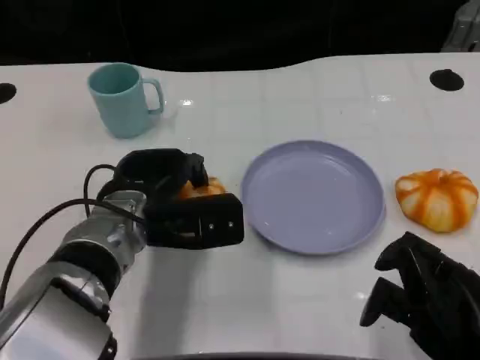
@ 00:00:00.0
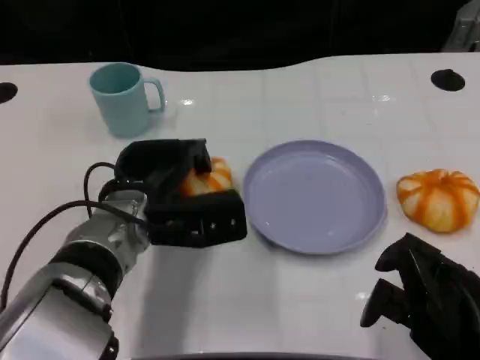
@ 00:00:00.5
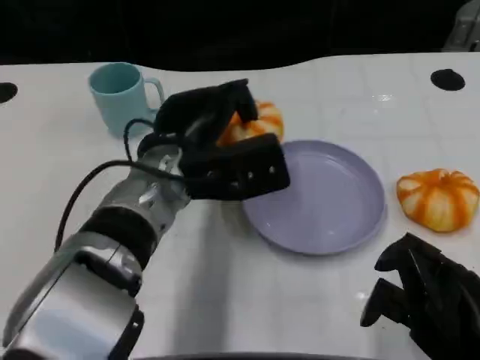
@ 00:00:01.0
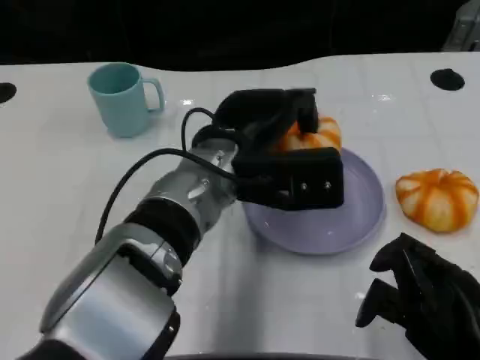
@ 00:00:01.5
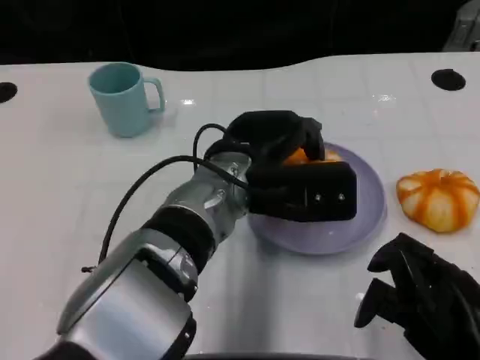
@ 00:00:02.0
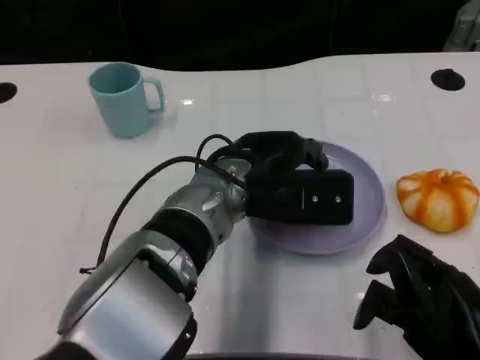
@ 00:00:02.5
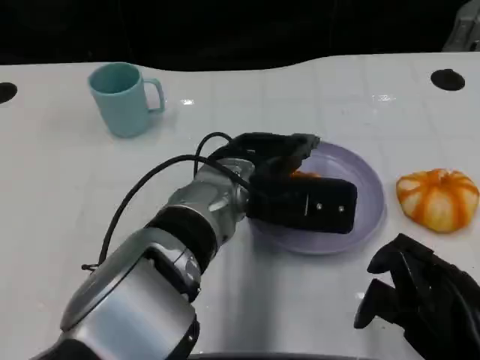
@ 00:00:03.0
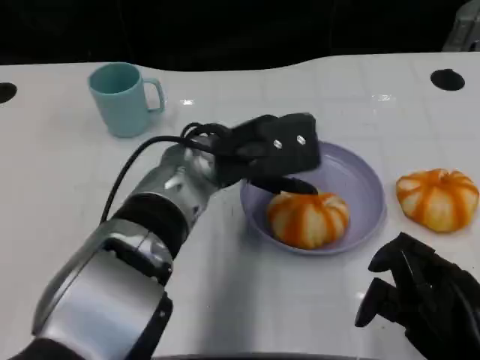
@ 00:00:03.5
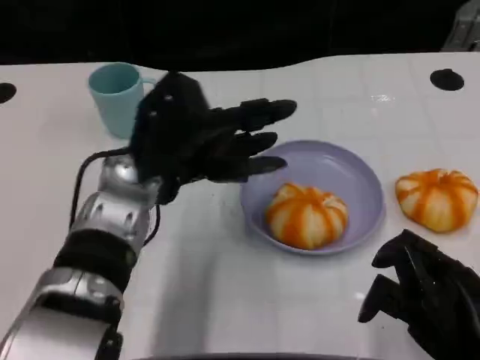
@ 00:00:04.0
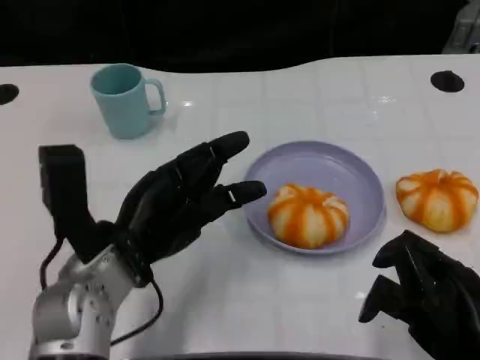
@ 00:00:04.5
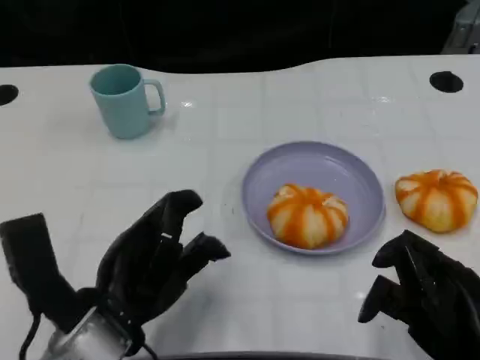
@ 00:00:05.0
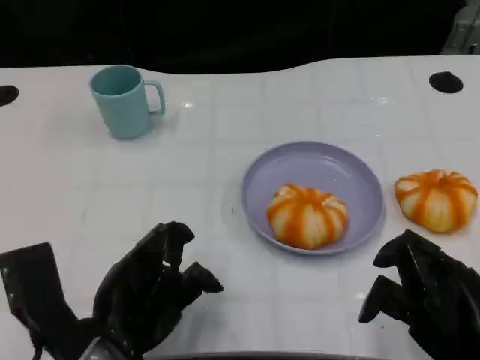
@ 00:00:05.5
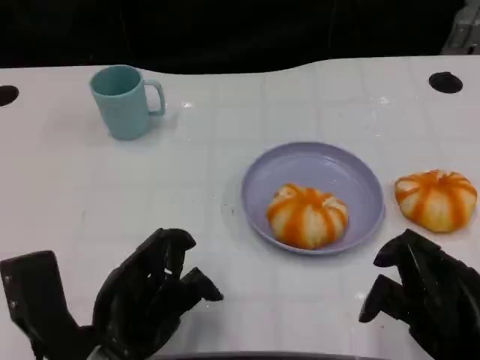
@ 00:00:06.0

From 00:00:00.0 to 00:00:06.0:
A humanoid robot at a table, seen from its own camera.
Task of the whole recording: Grasp the bread from the table and place it into the plate.
From 00:00:00.0 to 00:00:02.0: The left hand goes about 10 cm to the right.
From 00:00:02.0 to 00:00:04.0: The left hand heads to the left, covering roughly 10 cm.
From 00:00:04.0 to 00:00:06.0: The left hand is displaced backward by about 15 cm.

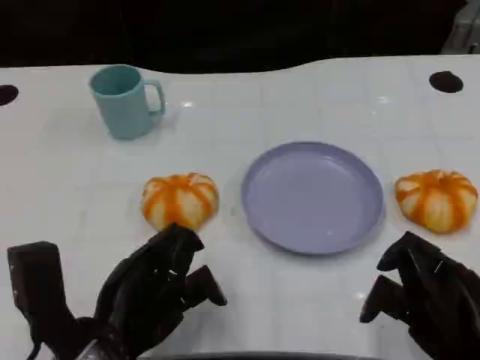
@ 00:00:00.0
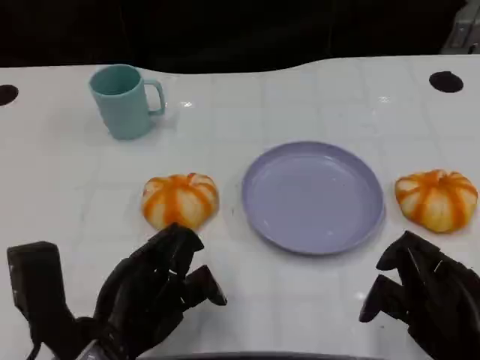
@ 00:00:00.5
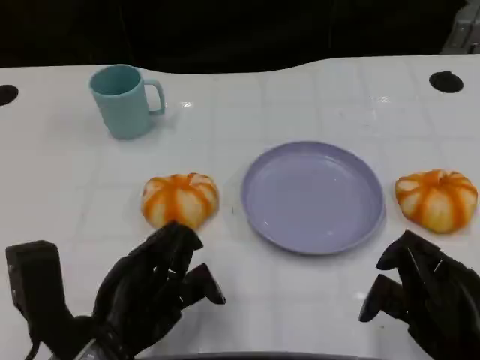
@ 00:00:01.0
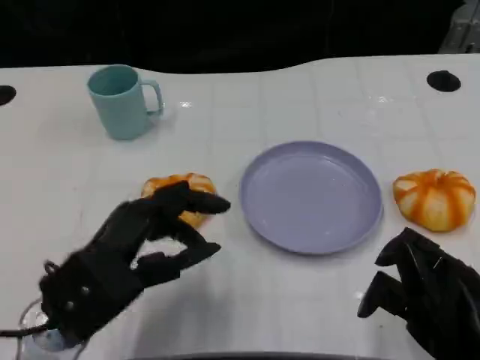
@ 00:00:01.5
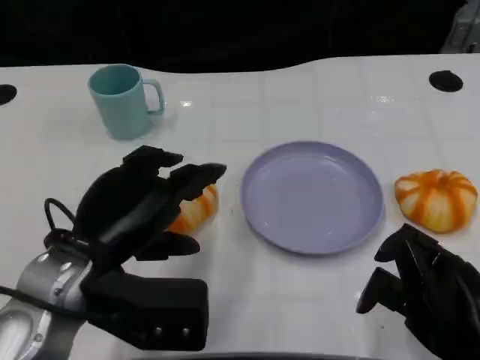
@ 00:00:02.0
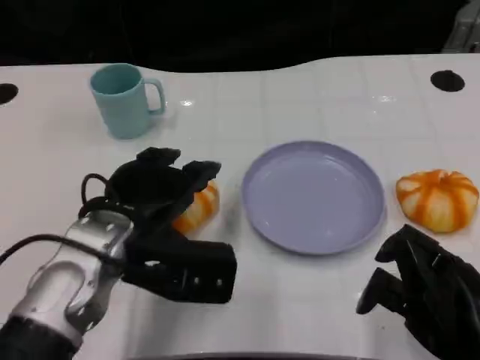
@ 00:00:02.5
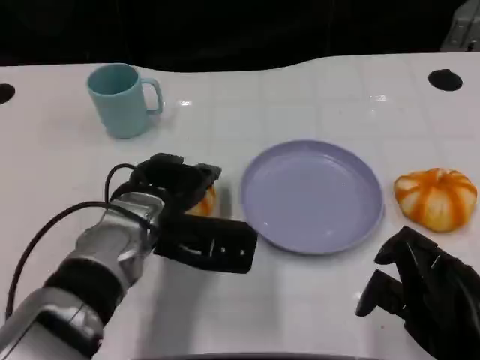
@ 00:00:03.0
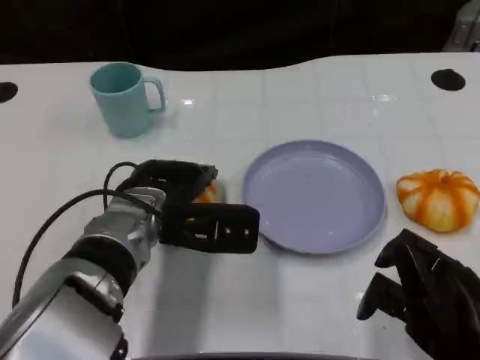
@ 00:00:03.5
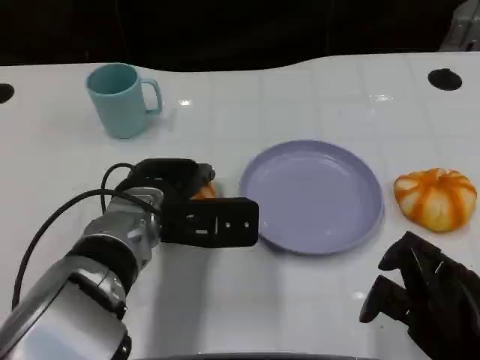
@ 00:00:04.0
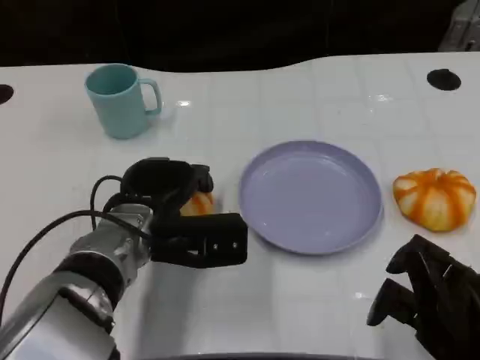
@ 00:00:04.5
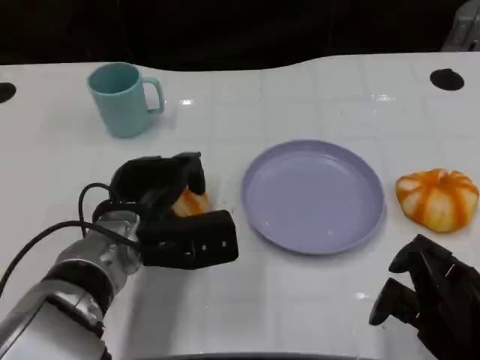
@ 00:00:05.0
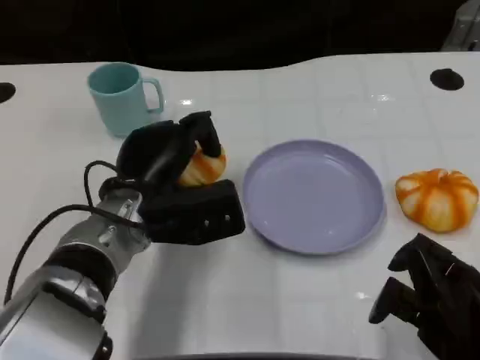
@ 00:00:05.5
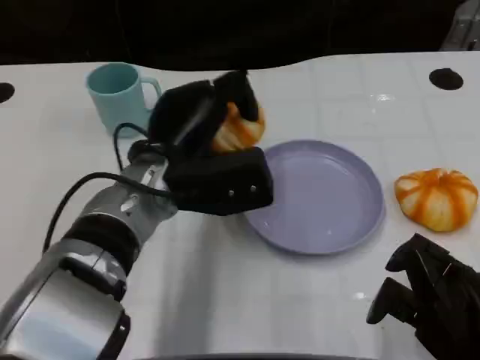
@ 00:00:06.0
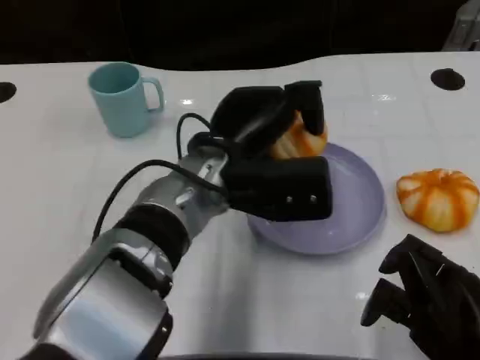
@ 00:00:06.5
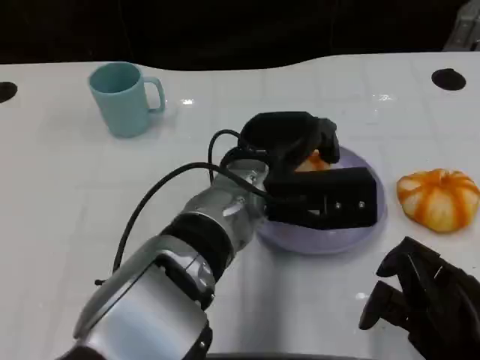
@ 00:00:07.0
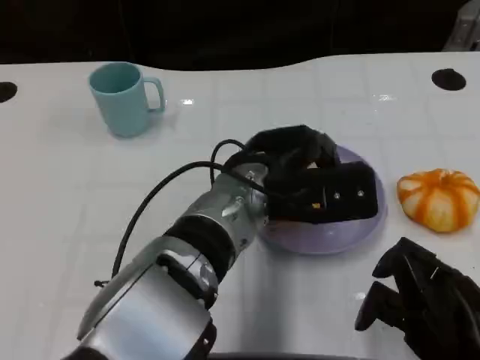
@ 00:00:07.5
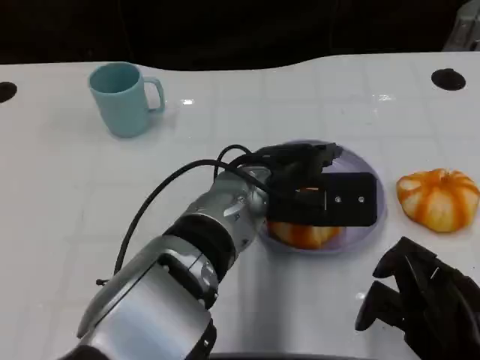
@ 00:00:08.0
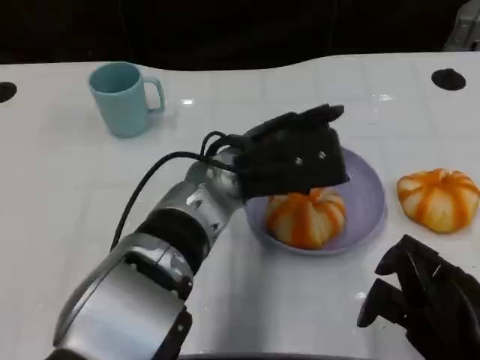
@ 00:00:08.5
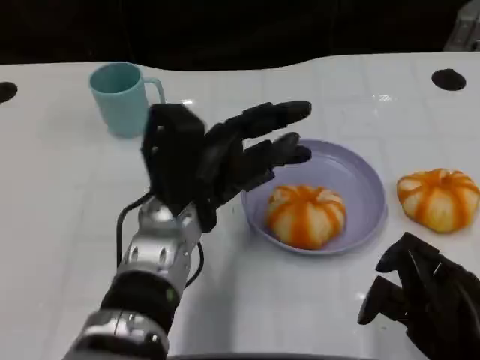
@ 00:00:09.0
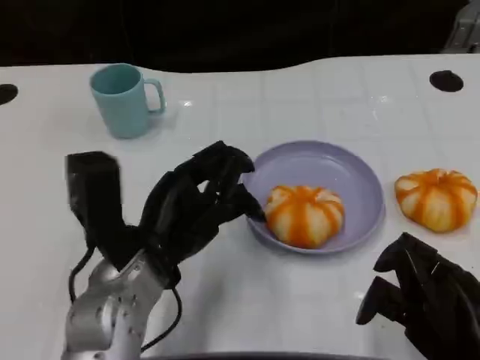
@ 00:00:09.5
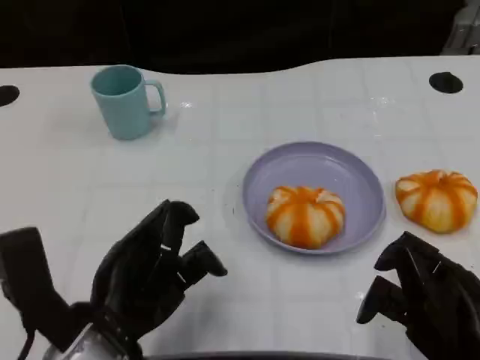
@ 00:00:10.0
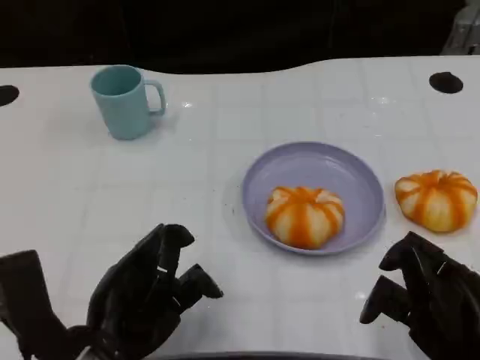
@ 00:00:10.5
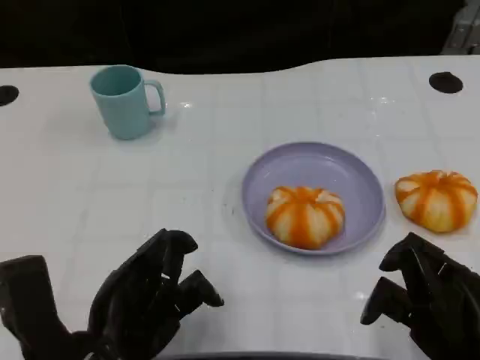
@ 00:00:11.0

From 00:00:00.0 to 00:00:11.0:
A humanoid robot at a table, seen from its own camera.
Task of the whole recording: Grasp the bread from the table and place it into the plate.
From 00:00:00.0 to 00:00:02.0: The left hand heads upward, covering roughly 5 cm.
From 00:00:02.0 to 00:00:03.5: The left hand is displaced forward and to the right by approximately 10 cm.
From 00:00:05.5 to 00:00:07.5: The left hand shifts approximately 10 cm to the right.
From 00:00:07.5 to 00:00:09.0: The left hand travels to the left by some 10 cm.
From 00:00:09.0 to 00:00:11.0: The left hand shifts about 15 cm backward and to the left.
